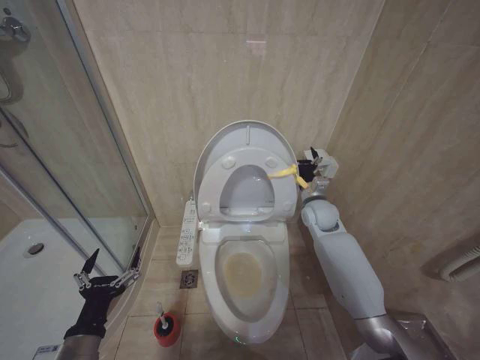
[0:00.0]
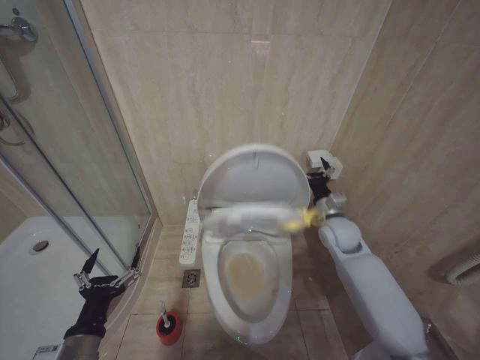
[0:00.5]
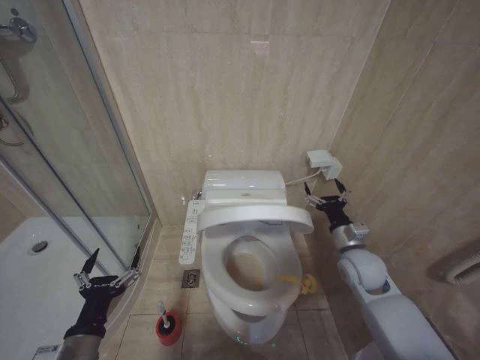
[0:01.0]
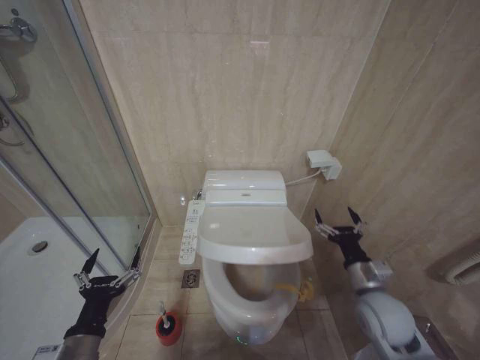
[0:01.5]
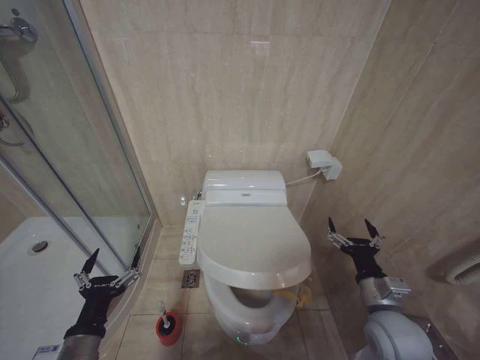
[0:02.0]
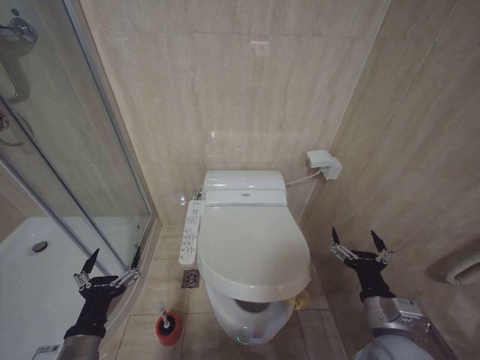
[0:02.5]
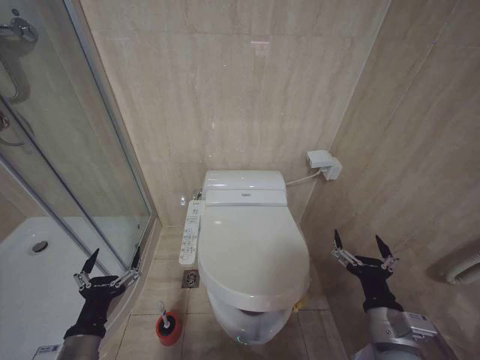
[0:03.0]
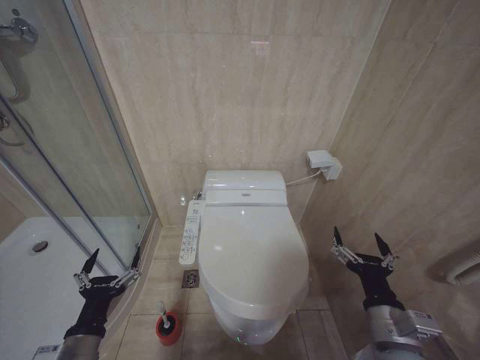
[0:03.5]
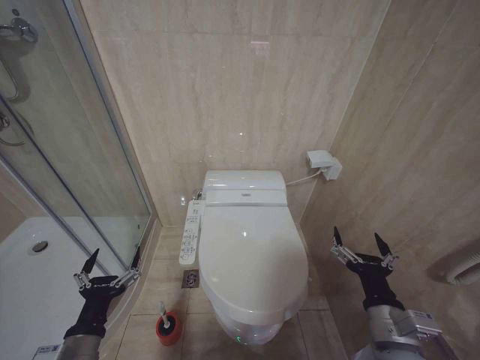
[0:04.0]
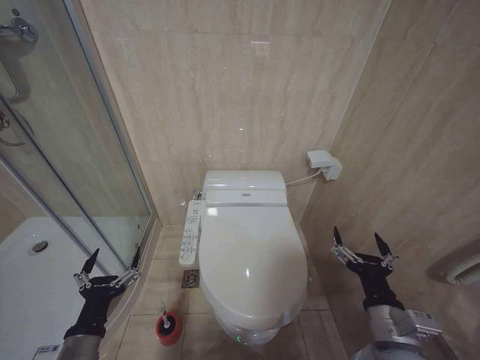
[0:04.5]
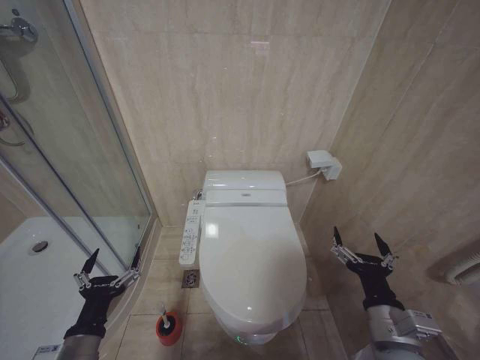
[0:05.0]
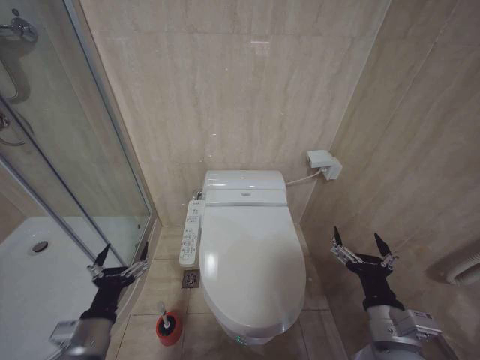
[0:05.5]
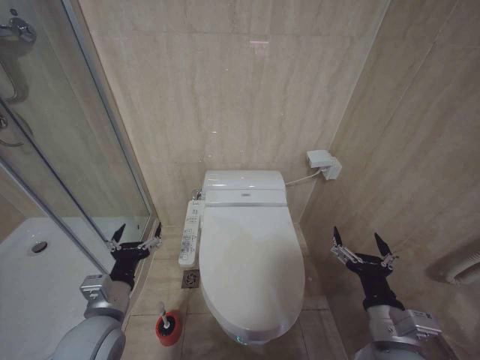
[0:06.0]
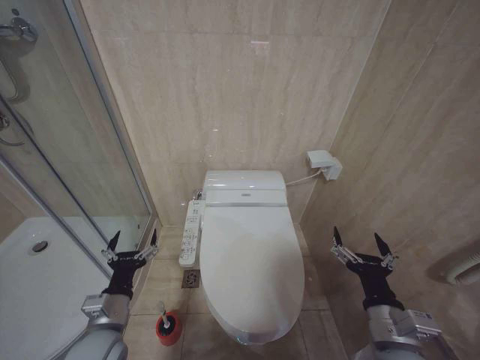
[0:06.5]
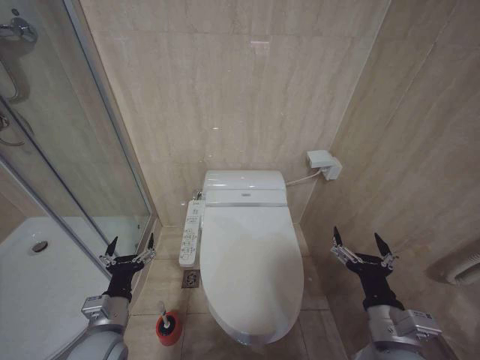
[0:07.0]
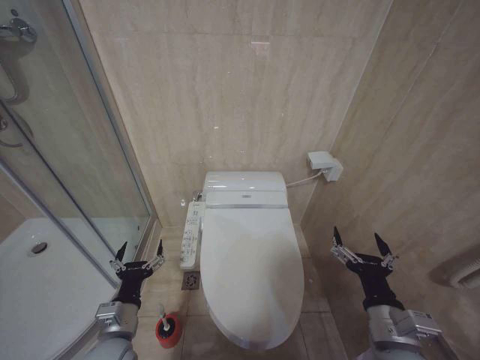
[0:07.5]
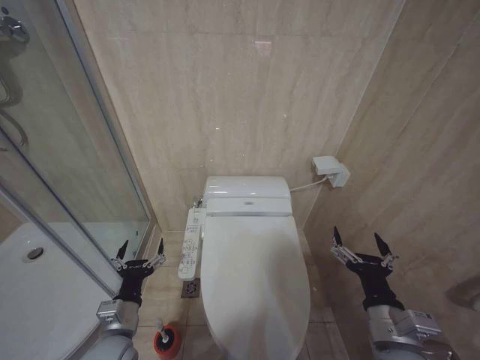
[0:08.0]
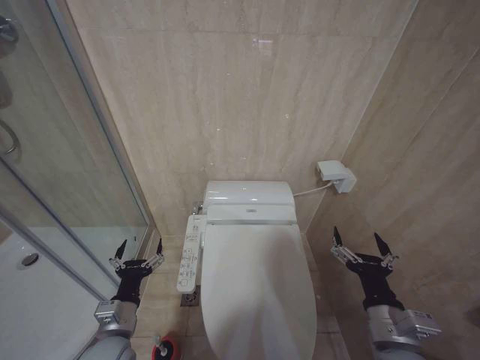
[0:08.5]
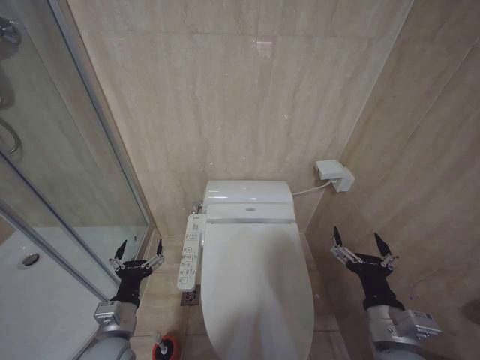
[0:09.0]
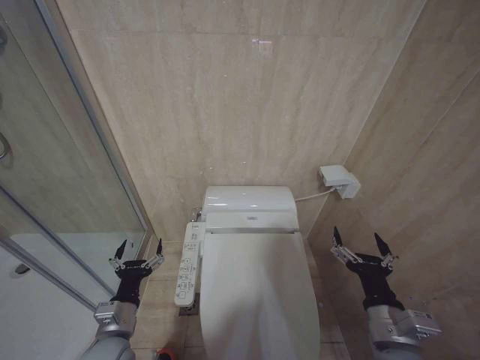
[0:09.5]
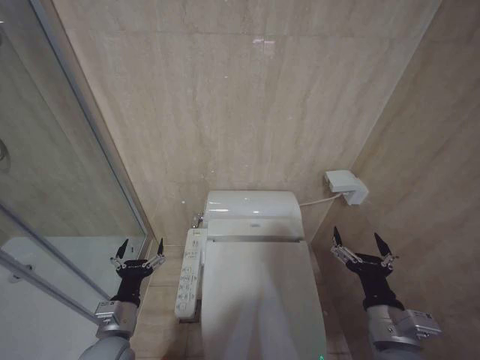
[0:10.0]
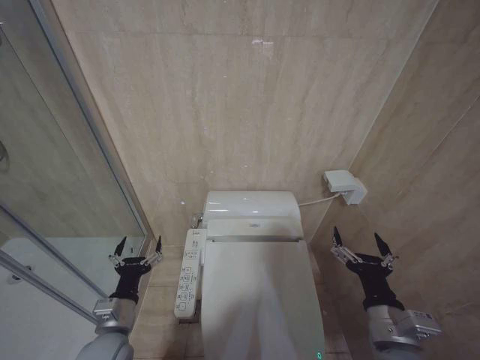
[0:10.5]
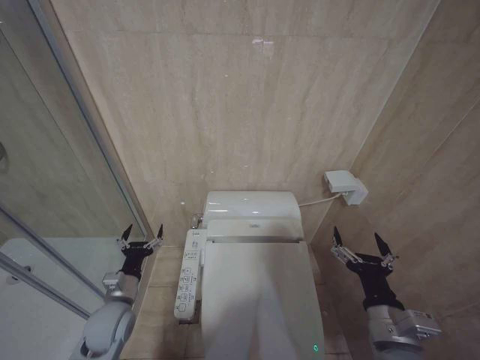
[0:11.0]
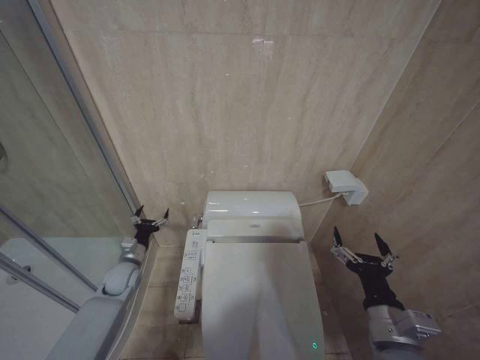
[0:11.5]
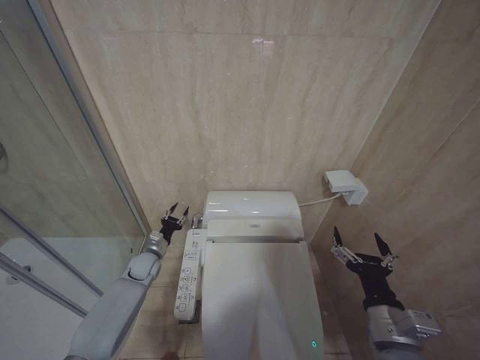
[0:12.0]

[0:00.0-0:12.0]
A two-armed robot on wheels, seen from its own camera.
Task of the whole recording: Open the toilet lid, clean the toilet bowl with a toilet brush, close the toilet lid, and flush.
0:00.0 to 0:02.0: The right gripper is displaced backward by roughly 30 cm.
0:02.0 to 0:04.0: The right gripper goes some 5 cm backward.
0:04.0 to 0:06.0: The left gripper is displaced forward by approximately 10 cm.
0:06.0 to 0:08.0: The left gripper goes roughly 5 cm downward.
0:08.0 to 0:10.0: Both grippers stay about where they are.
0:10.0 to 0:12.0: The left gripper heads forward, covering some 25 cm.

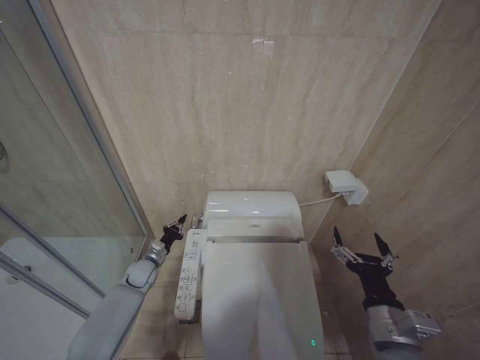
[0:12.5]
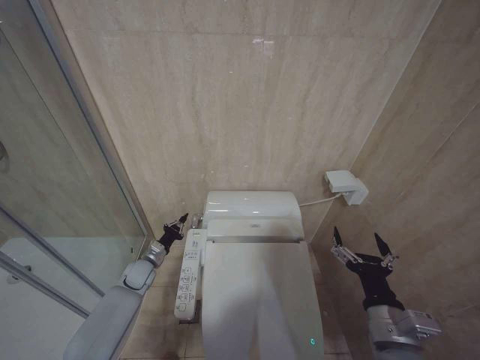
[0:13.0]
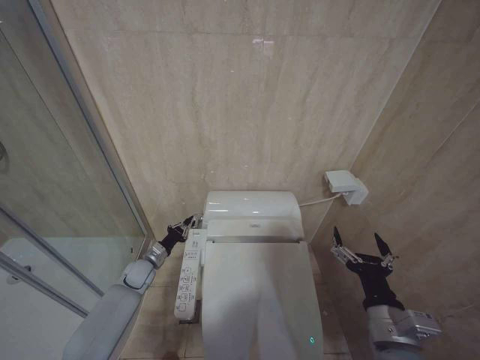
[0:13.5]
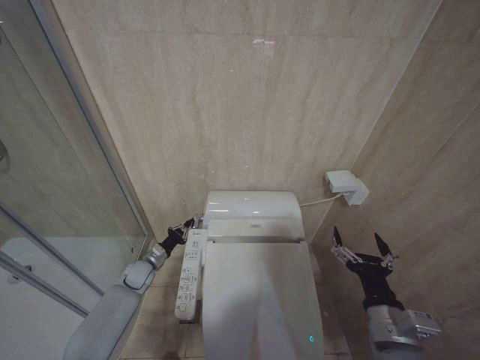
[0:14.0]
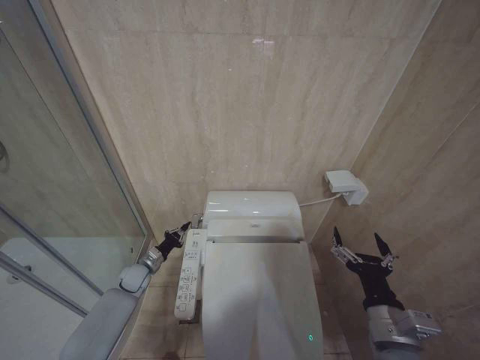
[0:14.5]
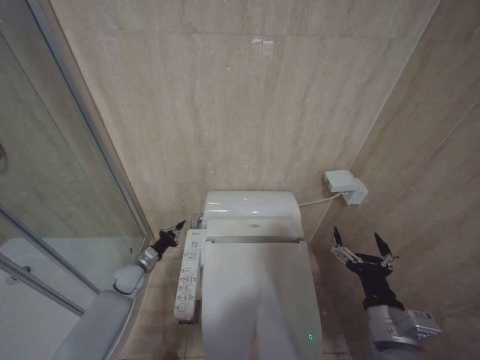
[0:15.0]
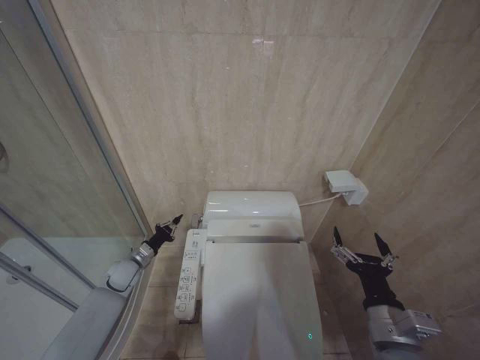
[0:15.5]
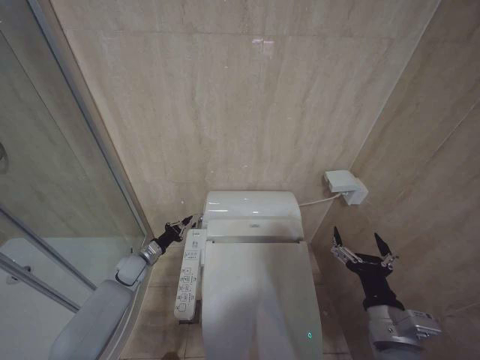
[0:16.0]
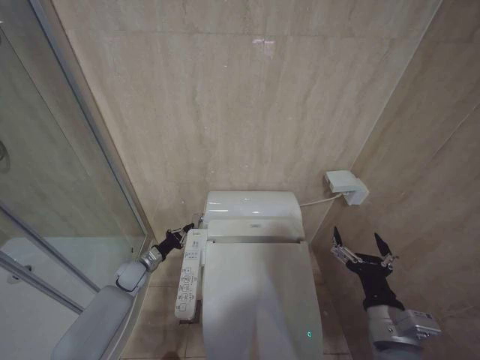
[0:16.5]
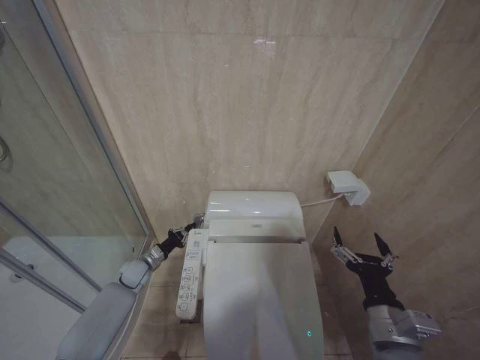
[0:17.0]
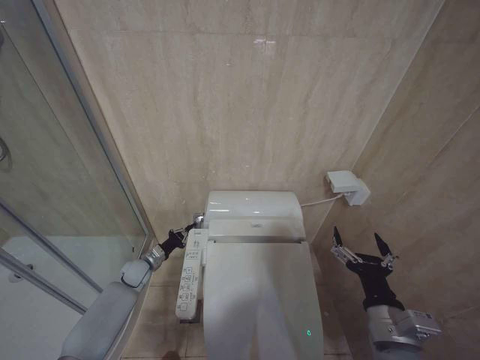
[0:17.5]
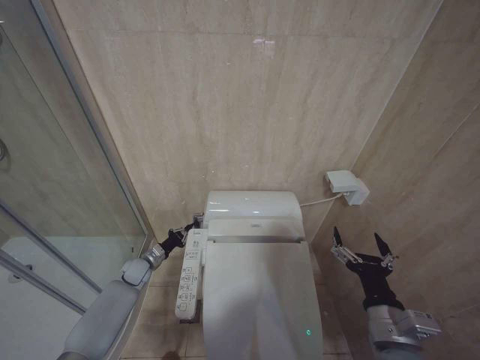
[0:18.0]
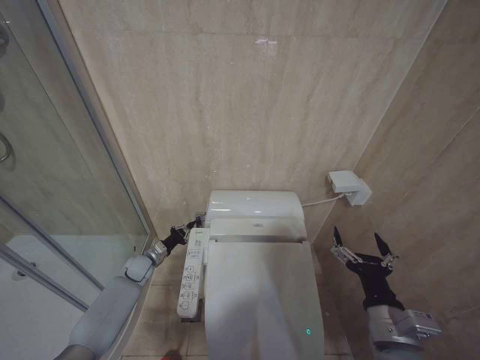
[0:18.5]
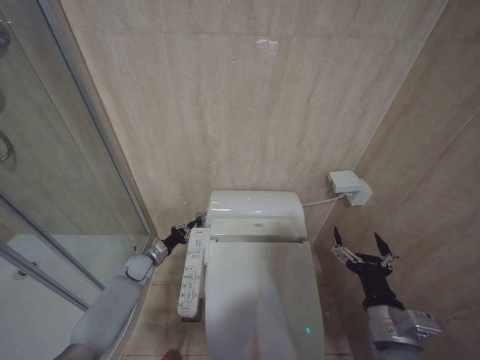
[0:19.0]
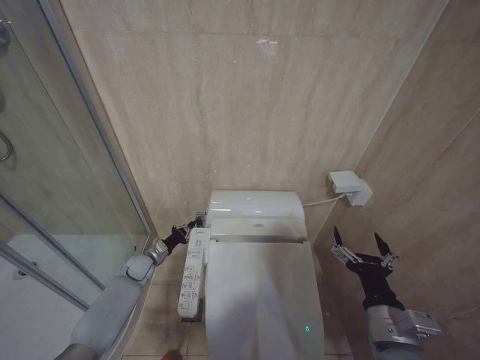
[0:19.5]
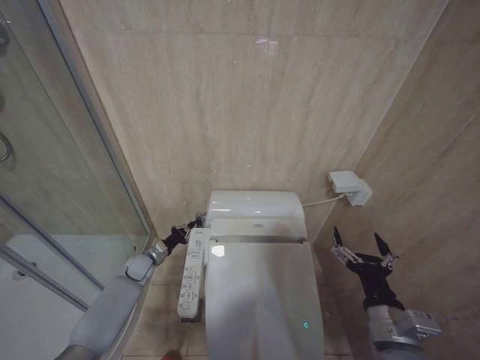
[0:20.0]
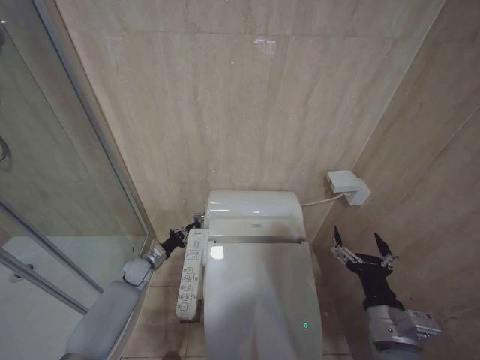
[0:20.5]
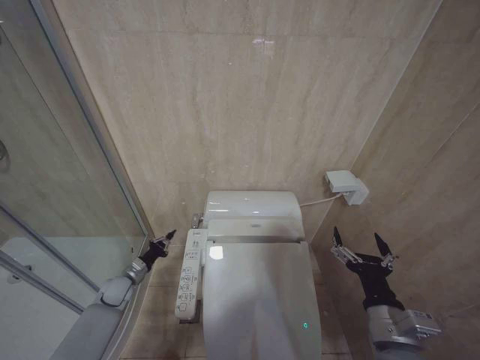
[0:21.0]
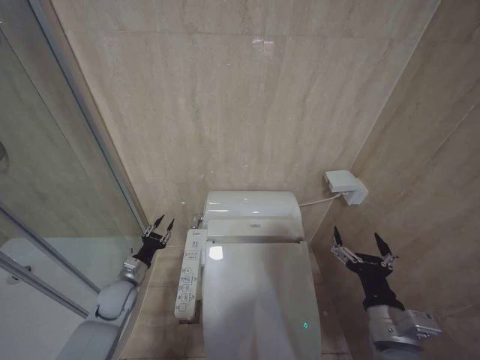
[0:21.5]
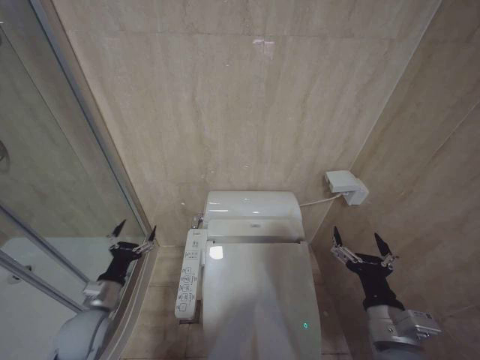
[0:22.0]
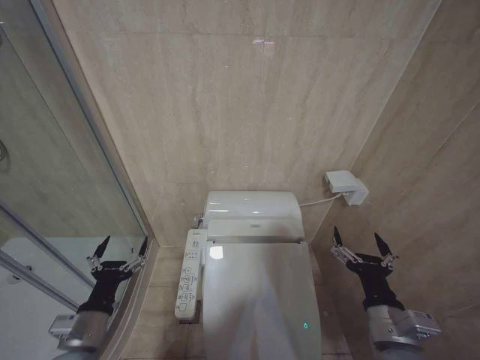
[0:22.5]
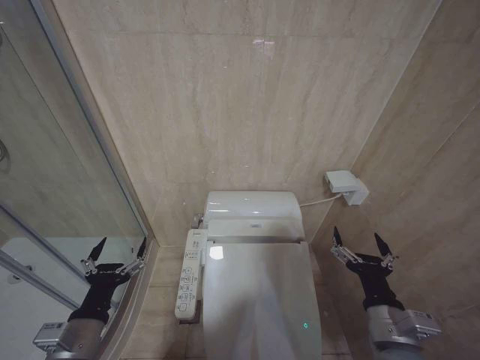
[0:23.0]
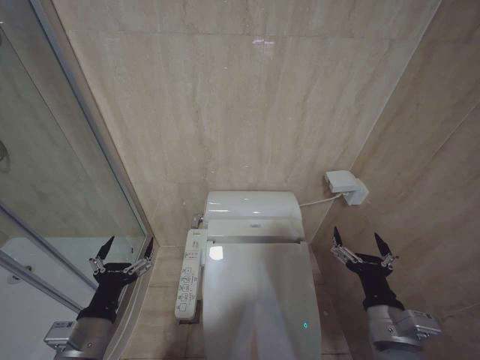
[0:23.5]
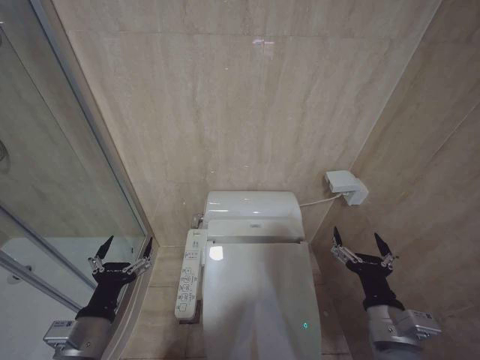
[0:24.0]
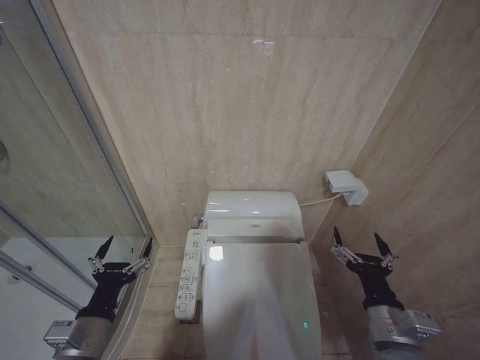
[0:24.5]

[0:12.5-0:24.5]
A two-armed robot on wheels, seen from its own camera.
Task of the whole recording: Open the toilet lid, clean the toilet bowl with a toilet brush, close the toilet lid, and flush.
0:16.5 to 0:18.5: The grippers stay close to where they were, moving slightly.
0:18.5 to 0:20.5: The two grippers keep their place.
0:20.5 to 0:22.5: The left gripper shifts about 30 cm backward and upward, and opens its fingers.
0:22.5 to 0:24.5: The left gripper moves roughly 5 cm.

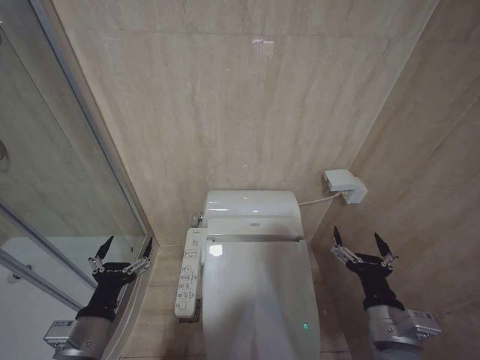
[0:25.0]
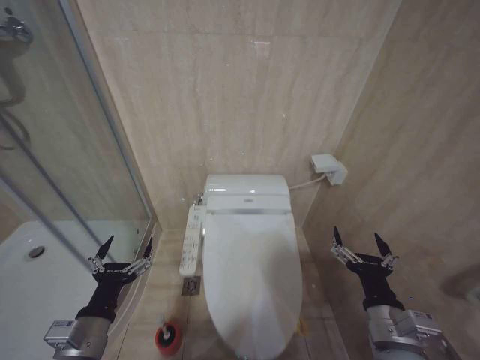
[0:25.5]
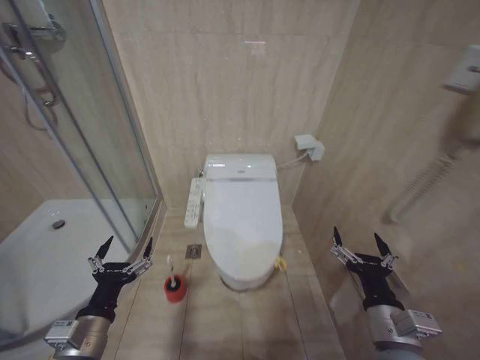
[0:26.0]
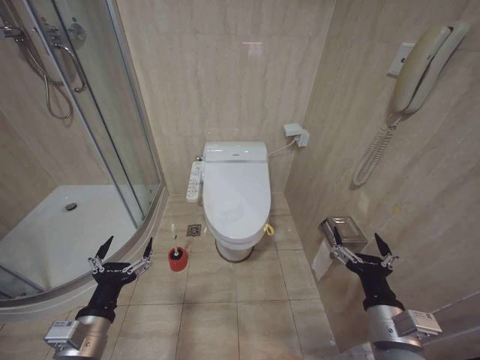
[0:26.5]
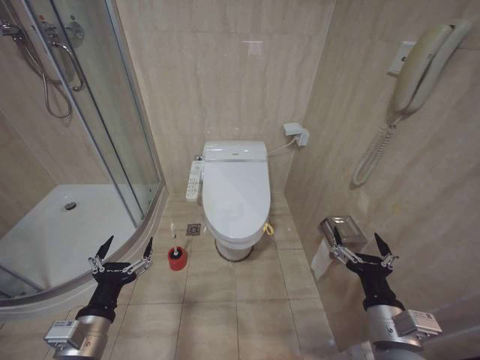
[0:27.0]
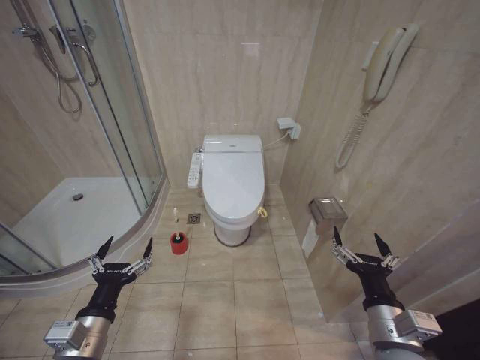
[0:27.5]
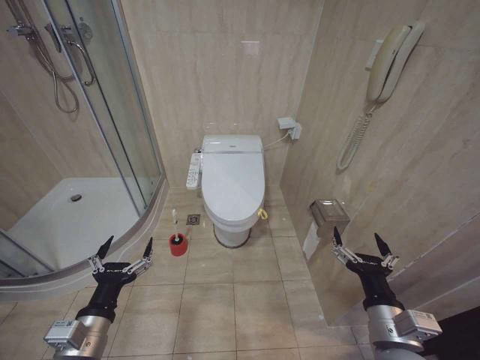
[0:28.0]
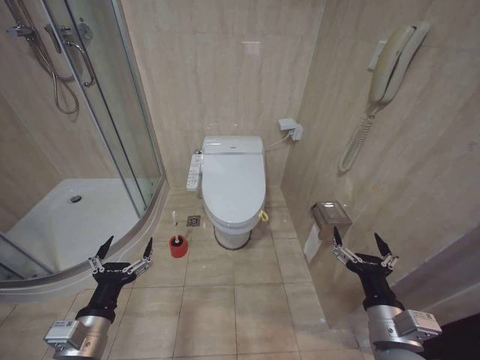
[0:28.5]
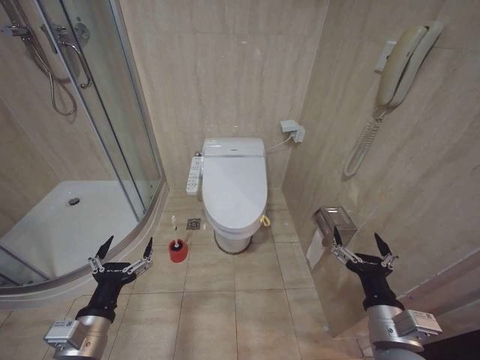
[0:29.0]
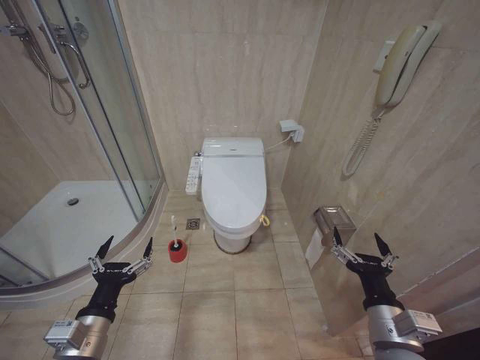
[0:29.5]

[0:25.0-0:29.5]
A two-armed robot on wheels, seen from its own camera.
Task of the whole recording: Open the toilet lid, clean the toilet bowl with a toilet brush, close the toilet lid, and flush.
0:27.0 to 0:29.5: Neither gripper changes place.
